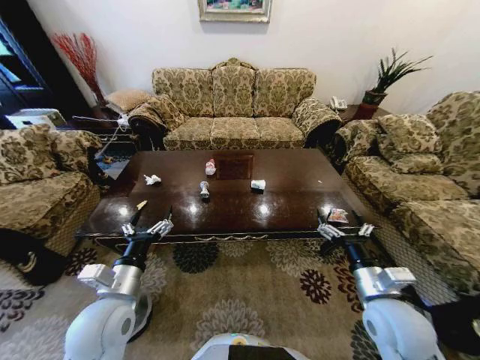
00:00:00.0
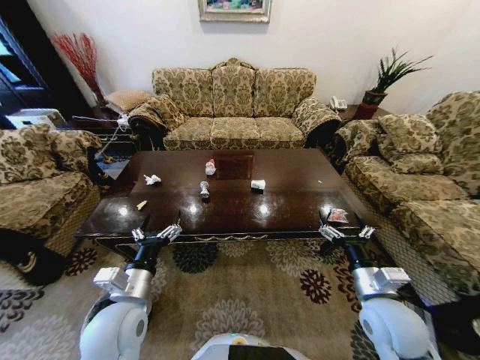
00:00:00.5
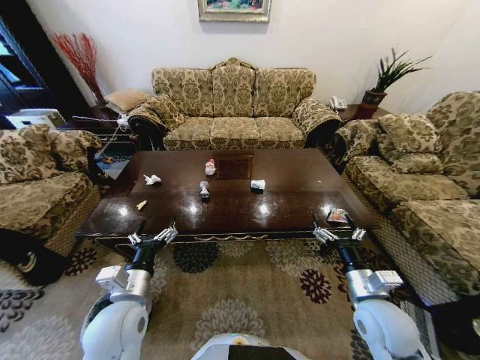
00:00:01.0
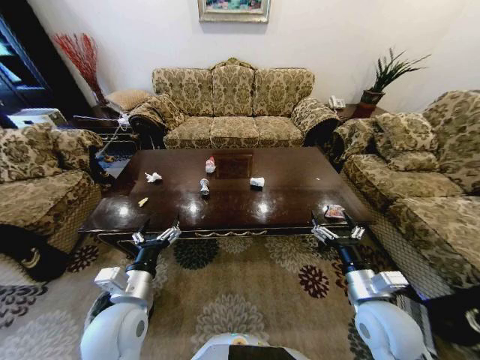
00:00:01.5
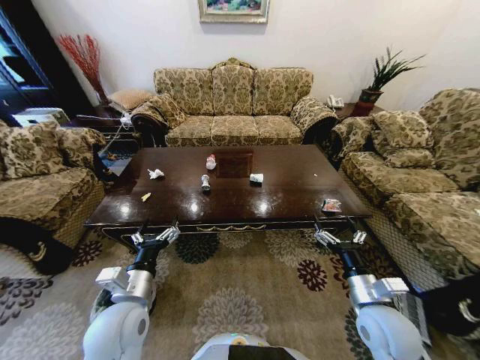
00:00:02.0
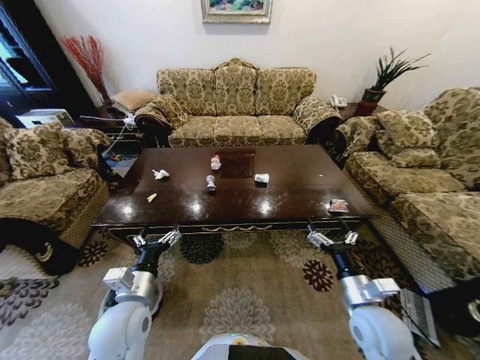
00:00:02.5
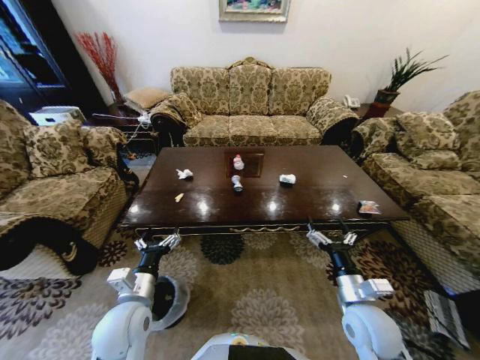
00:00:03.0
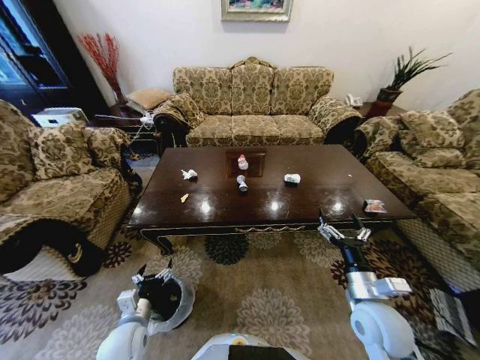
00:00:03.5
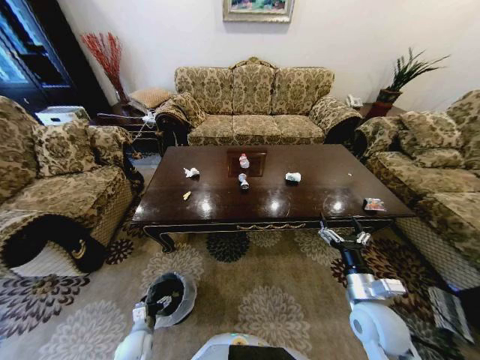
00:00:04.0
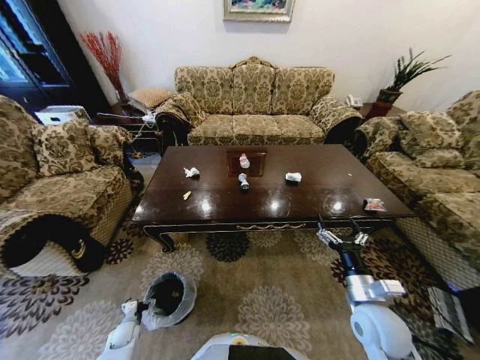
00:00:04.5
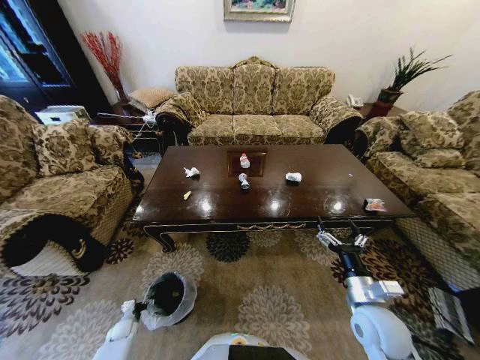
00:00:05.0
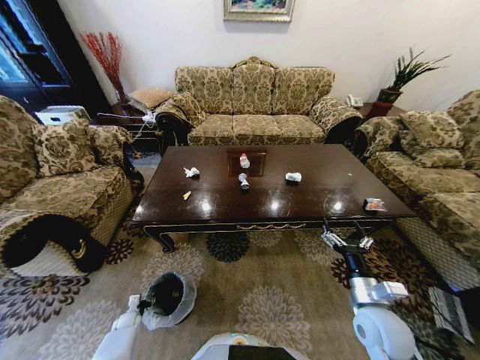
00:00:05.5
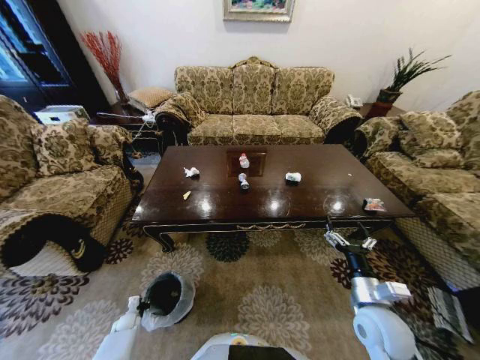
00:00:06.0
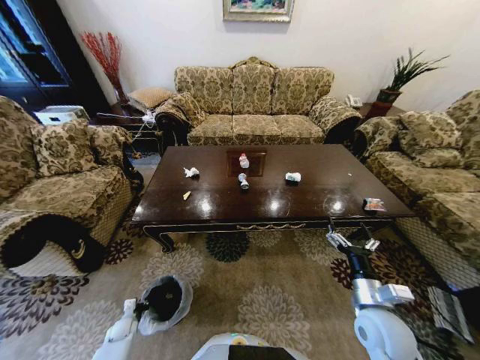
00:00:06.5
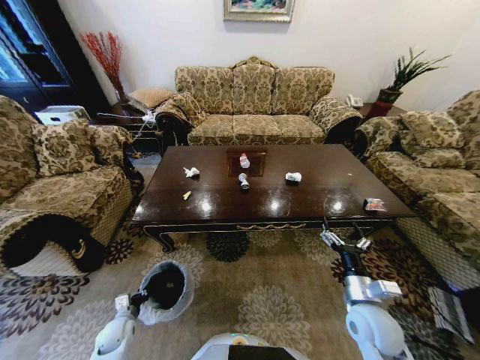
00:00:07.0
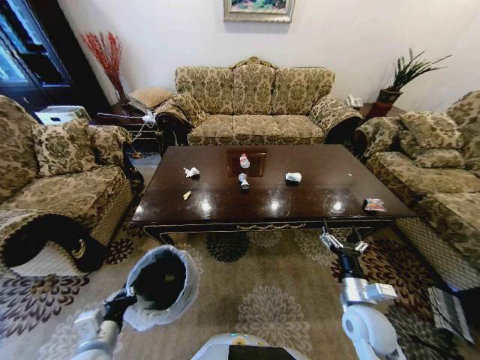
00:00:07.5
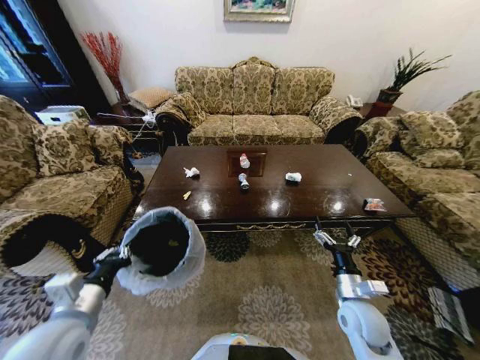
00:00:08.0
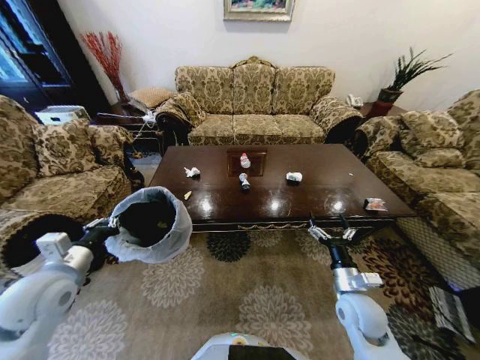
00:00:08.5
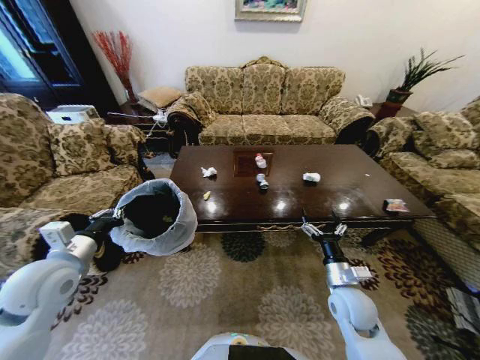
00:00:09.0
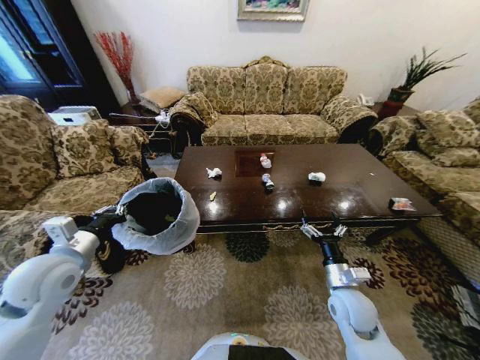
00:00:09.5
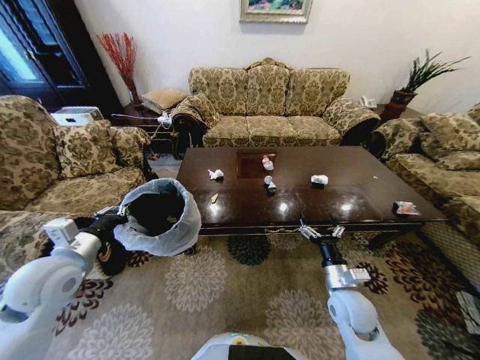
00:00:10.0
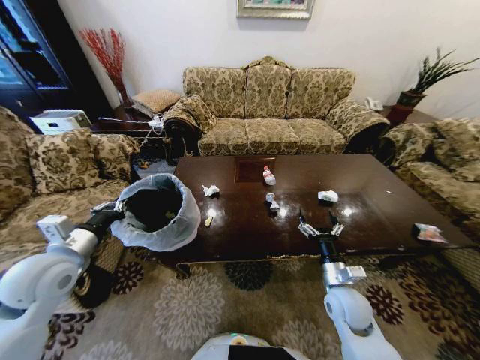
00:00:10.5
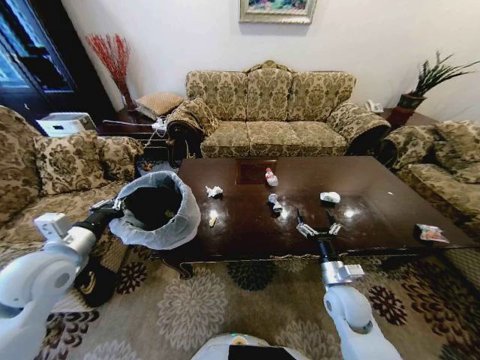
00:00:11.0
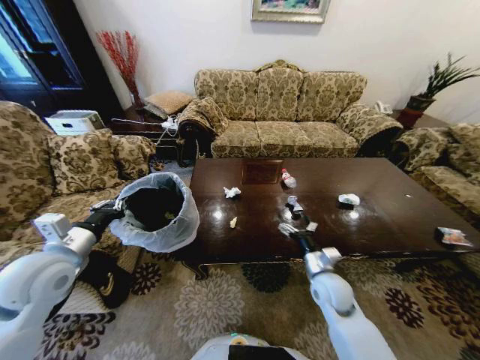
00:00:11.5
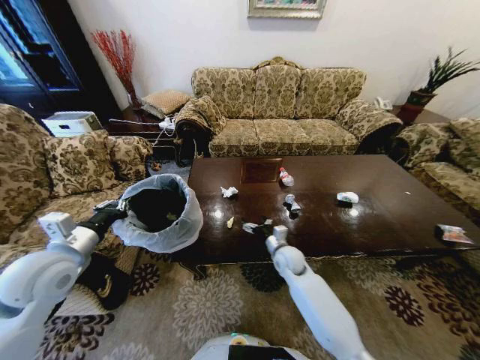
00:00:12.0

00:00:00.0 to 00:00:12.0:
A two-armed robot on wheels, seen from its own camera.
Task of the whole recording: Move to the front of the table and place the trash on the table into the trash bin.
00:00:02.0 to 00:00:04.0: The left gripper heads downward, covering about 30 cm.
00:00:04.0 to 00:00:06.0: The left gripper moves to the left, downward and forward, some 15 cm, and closes its fingers.
00:00:06.0 to 00:00:08.0: The left gripper is displaced upward by about 40 cm.
00:00:08.0 to 00:00:10.0: The left gripper moves forward and to the left, about 10 cm.
00:00:10.0 to 00:00:12.0: The right gripper heads forward and to the left, covering approximately 20 cm.

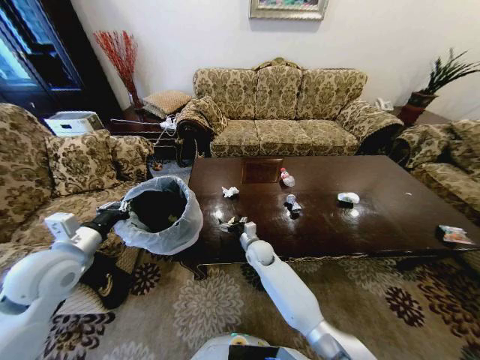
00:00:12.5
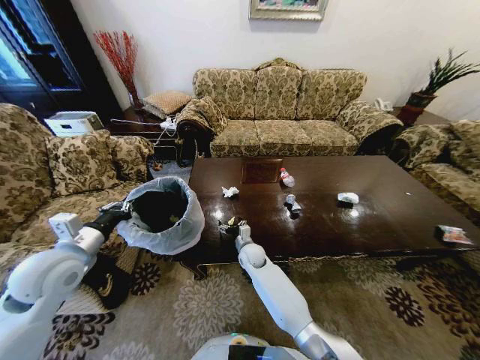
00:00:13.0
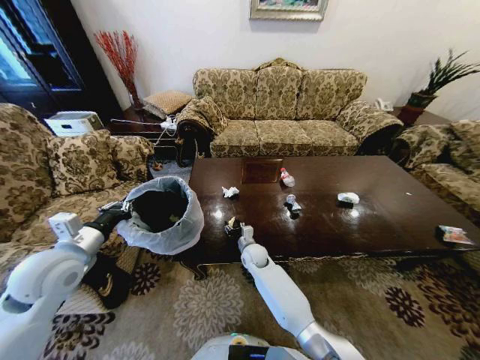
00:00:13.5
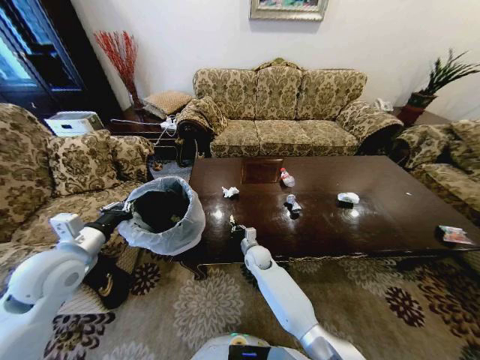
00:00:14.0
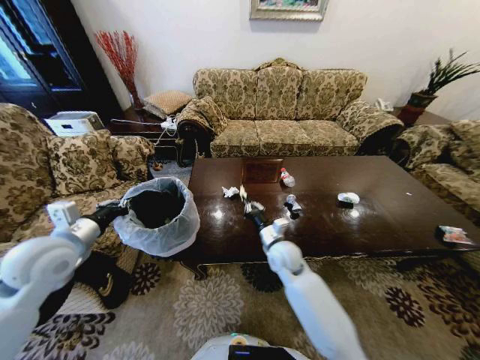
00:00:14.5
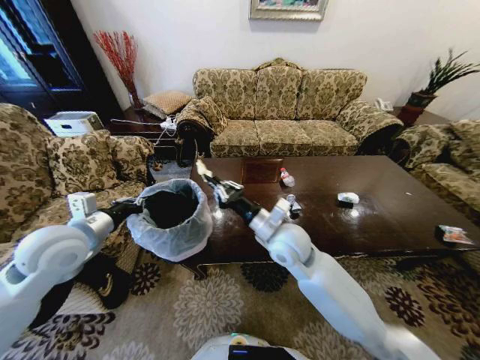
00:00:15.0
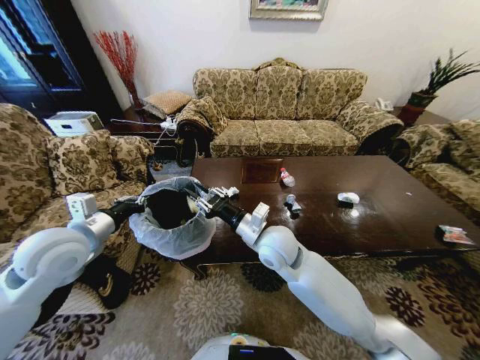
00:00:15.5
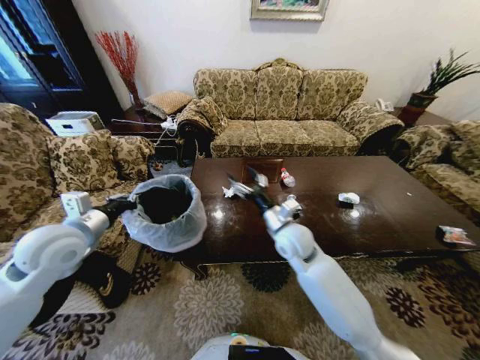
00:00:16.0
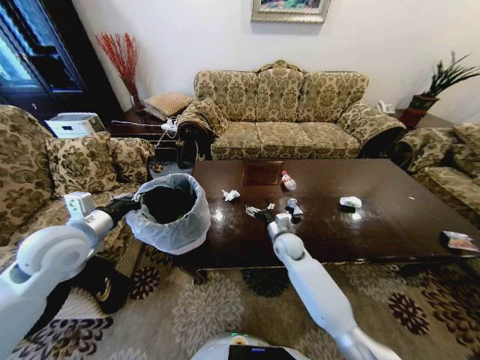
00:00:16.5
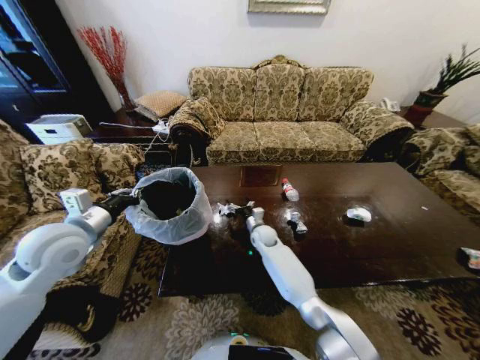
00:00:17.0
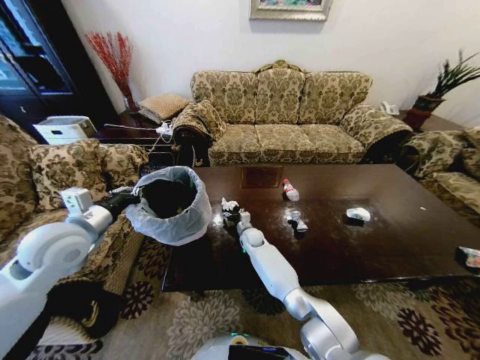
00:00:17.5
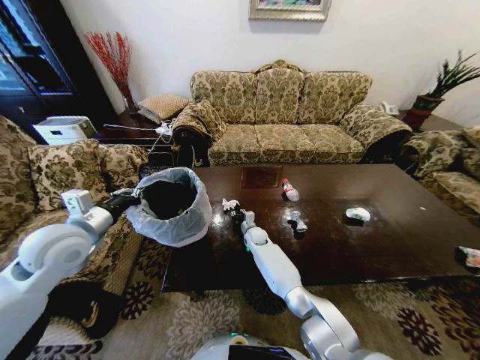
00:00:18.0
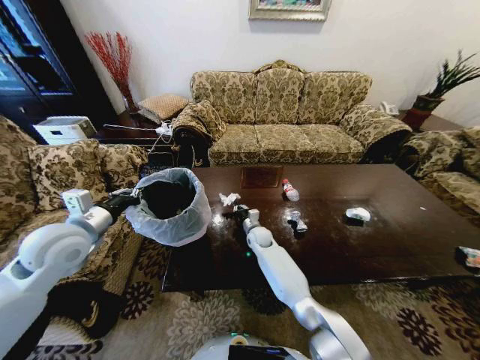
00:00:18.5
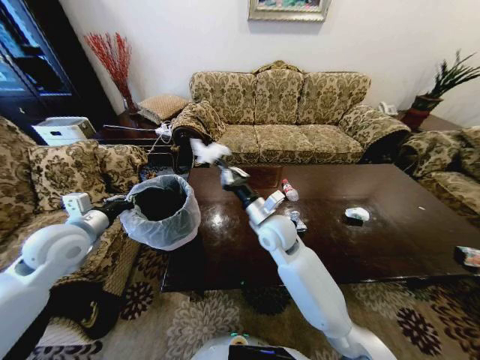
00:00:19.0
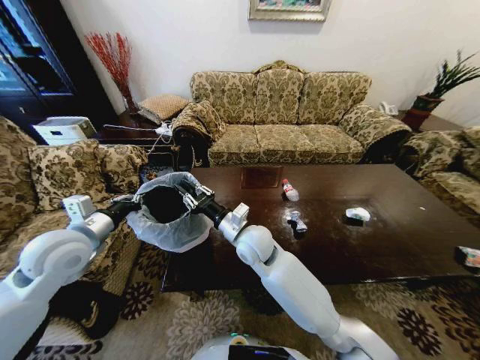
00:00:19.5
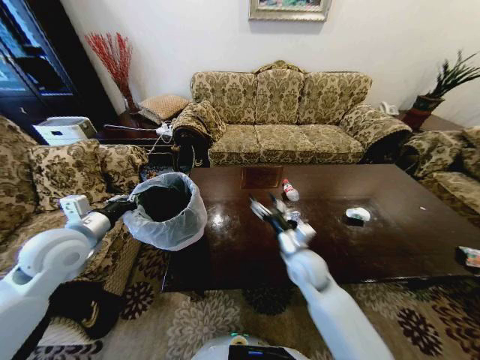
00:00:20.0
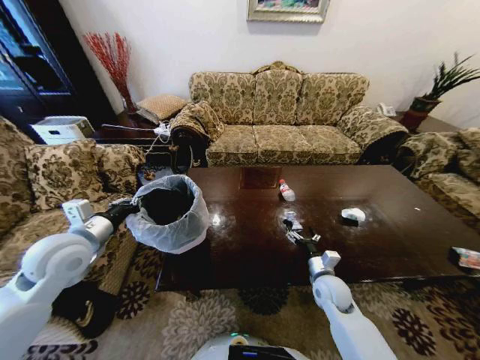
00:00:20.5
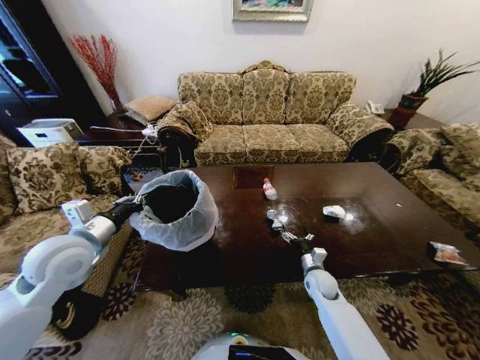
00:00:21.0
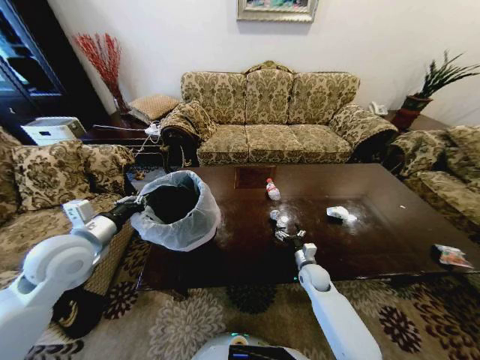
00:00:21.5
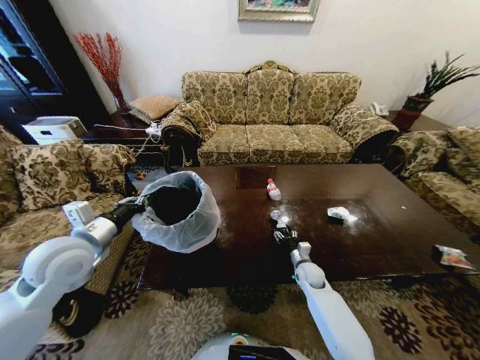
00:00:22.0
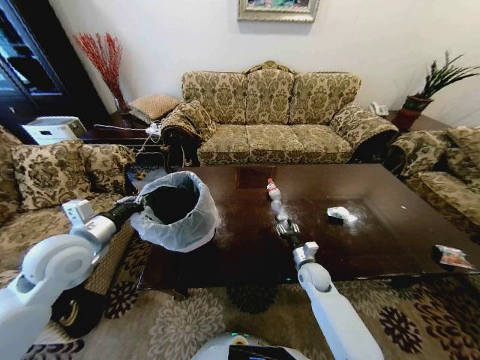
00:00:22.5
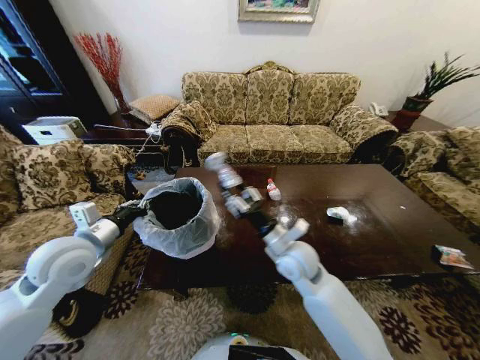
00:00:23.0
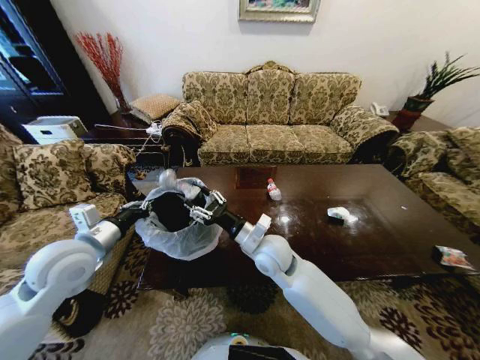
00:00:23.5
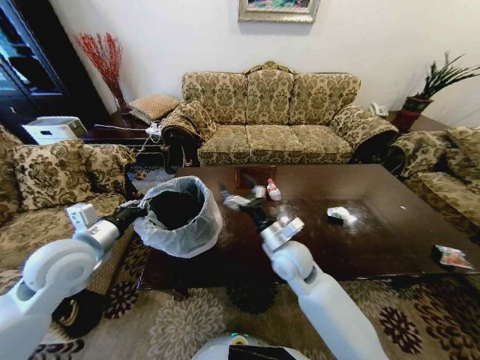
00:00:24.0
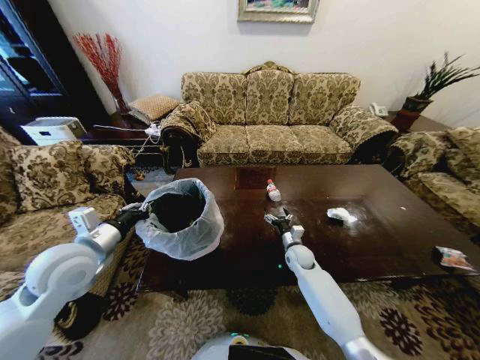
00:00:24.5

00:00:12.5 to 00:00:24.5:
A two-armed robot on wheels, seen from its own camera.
Task of the whole recording: Move to the front of the table and place the trash on the table into the trash bin.
00:00:12.5 to 00:00:14.5: The right gripper travels upward, to the right and backward by approximately 10 cm, and closes up.
00:00:14.5 to 00:00:16.5: The right gripper heads forward, covering about 5 cm, travels upward and back again, roughly 15 cm each way, and opens up.
00:00:16.5 to 00:00:18.5: The right gripper shifts some 10 cm to the left and forward, and closes up.
00:00:18.5 to 00:00:20.5: The right gripper moves to the right and backward, some 25 cm, and opens.
00:00:20.5 to 00:00:22.5: The right gripper shifts roughly 10 cm downward and forward, and closes.
00:00:22.5 to 00:00:24.5: The right gripper moves forward, some 5 cm, reaches approximately 25 cm upward, then returns, and opens.

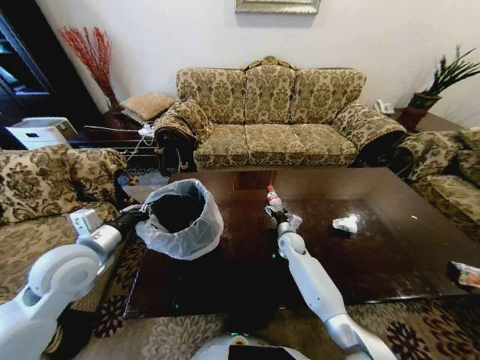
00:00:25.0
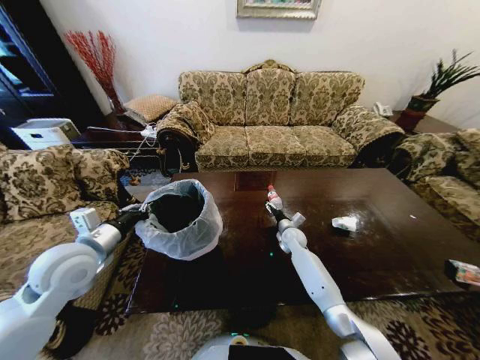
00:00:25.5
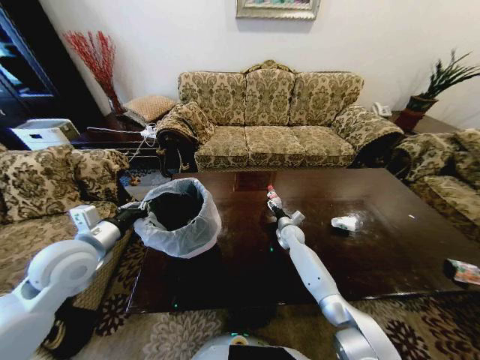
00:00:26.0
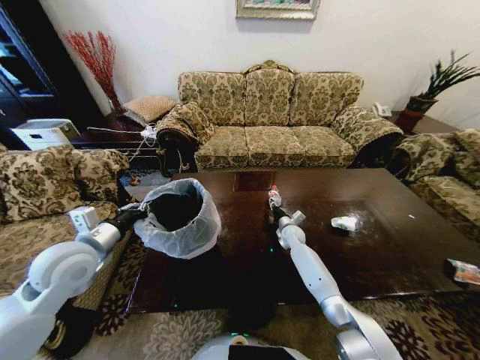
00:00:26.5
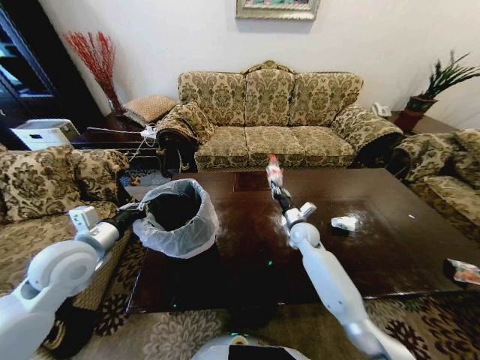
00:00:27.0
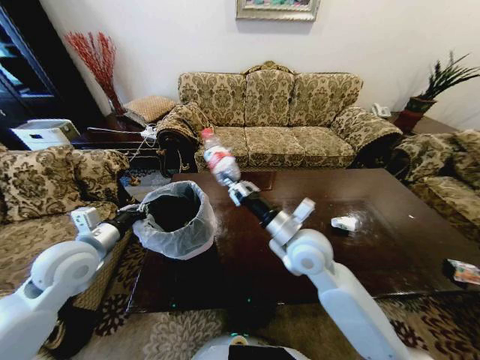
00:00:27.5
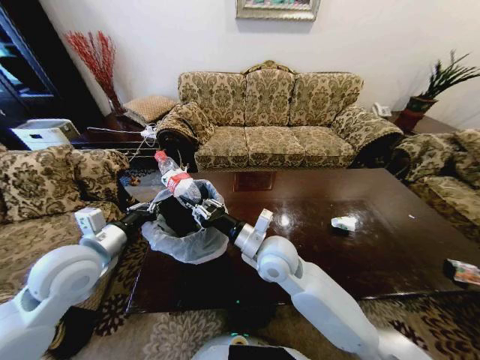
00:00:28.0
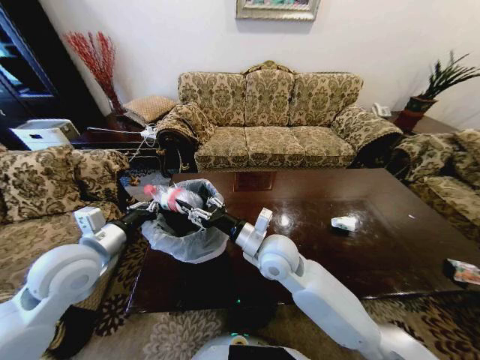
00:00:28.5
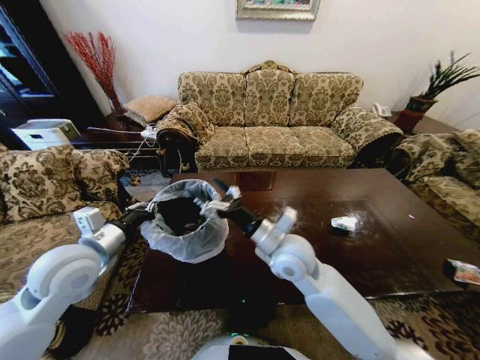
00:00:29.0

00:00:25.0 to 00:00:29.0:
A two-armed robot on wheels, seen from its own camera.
Task of the whole recording: Move to the front of the table and place the trash on the table into the trash bin.
00:00:25.0 to 00:00:27.0: The right gripper travels upward by approximately 5 cm, and closes.
00:00:27.0 to 00:00:29.0: The right gripper heads backward, upward and to the left, covering approximately 25 cm, and opens.
